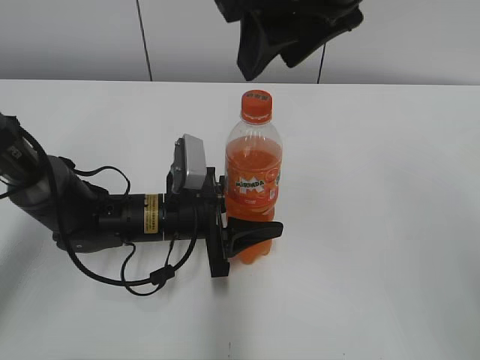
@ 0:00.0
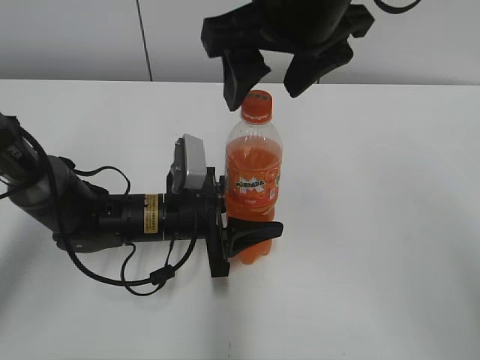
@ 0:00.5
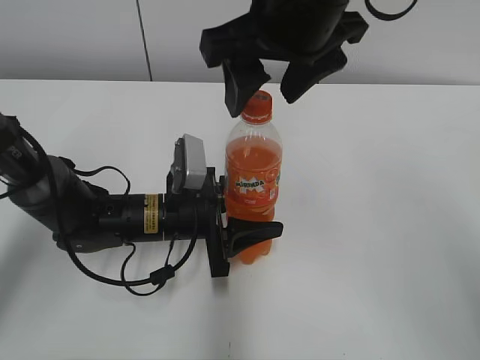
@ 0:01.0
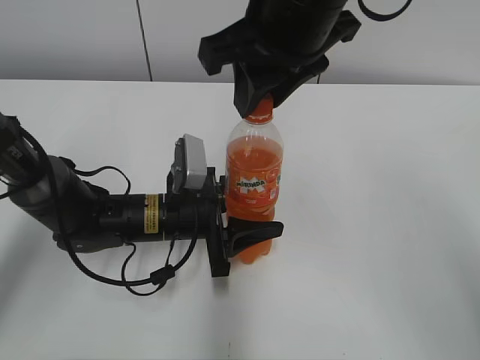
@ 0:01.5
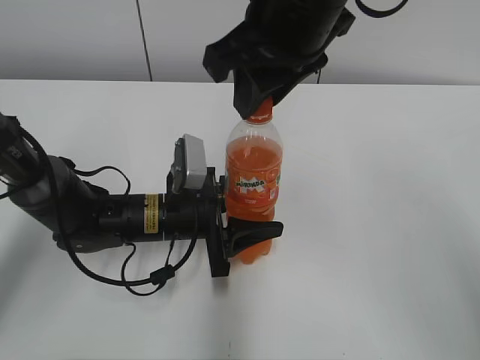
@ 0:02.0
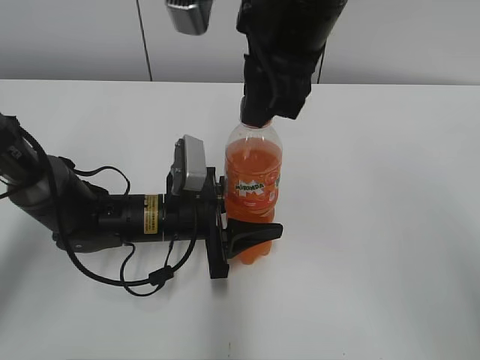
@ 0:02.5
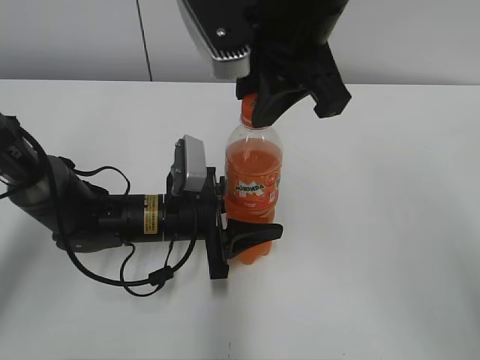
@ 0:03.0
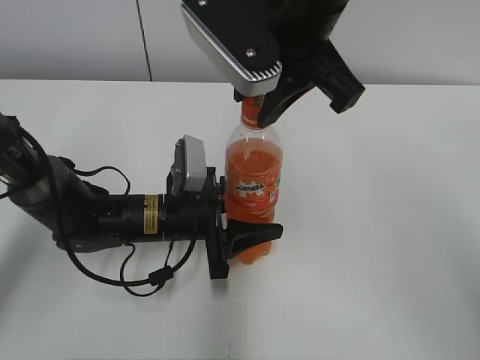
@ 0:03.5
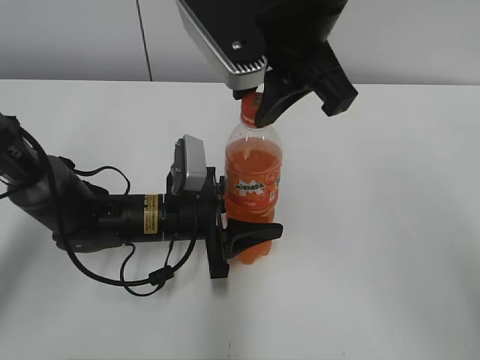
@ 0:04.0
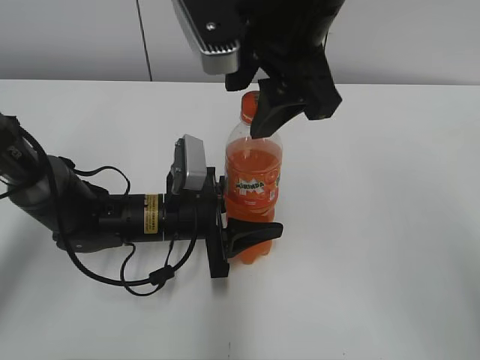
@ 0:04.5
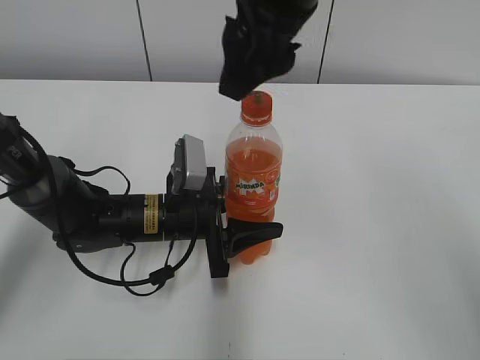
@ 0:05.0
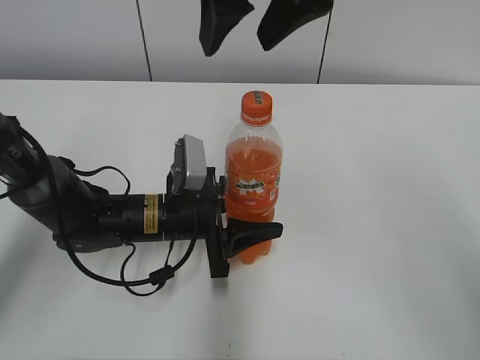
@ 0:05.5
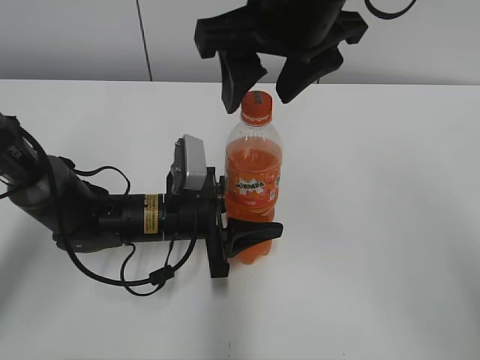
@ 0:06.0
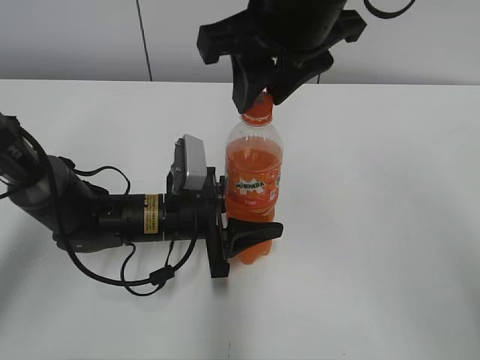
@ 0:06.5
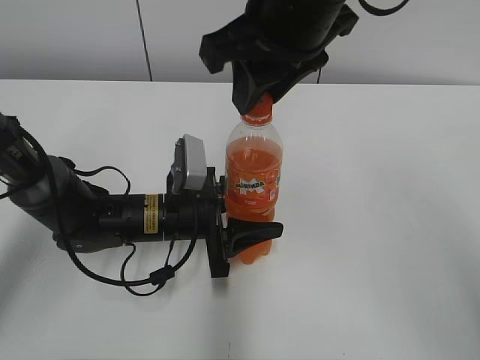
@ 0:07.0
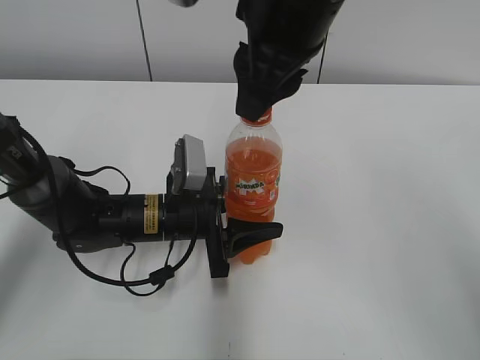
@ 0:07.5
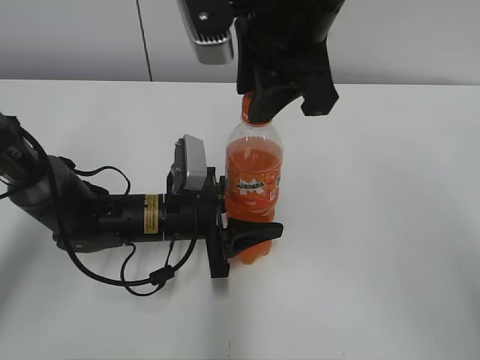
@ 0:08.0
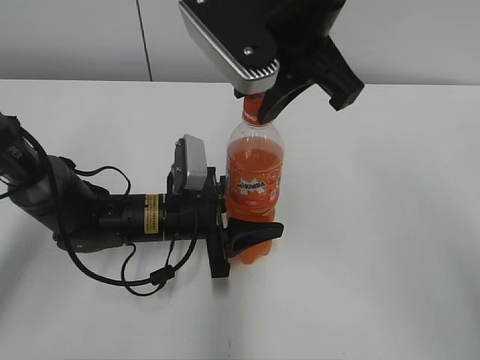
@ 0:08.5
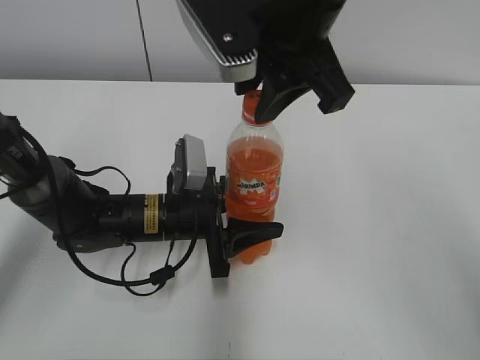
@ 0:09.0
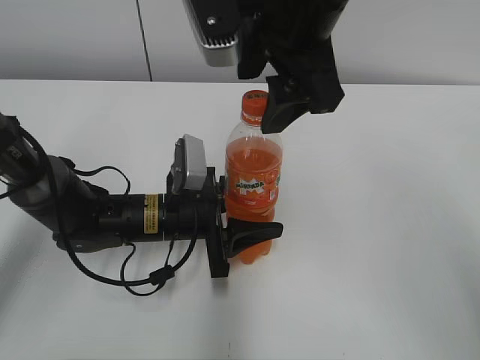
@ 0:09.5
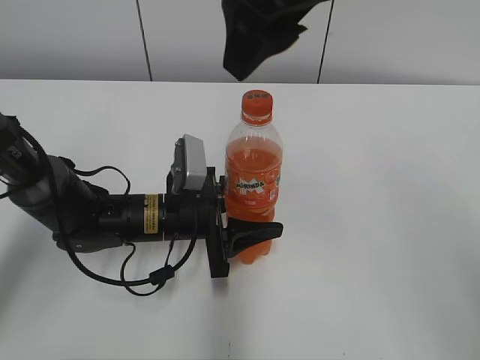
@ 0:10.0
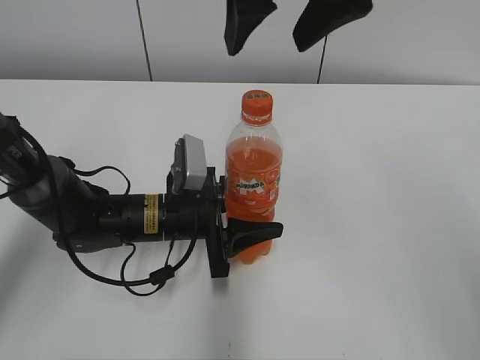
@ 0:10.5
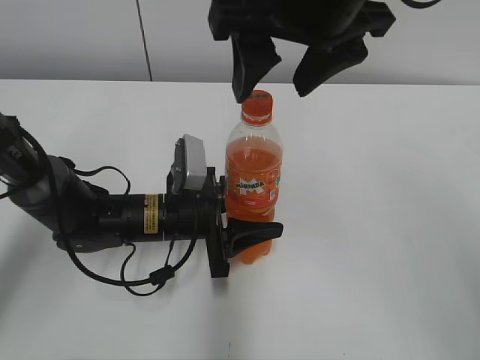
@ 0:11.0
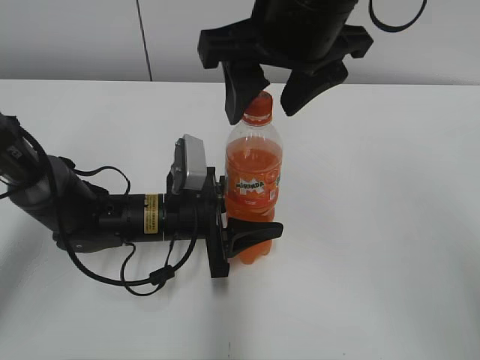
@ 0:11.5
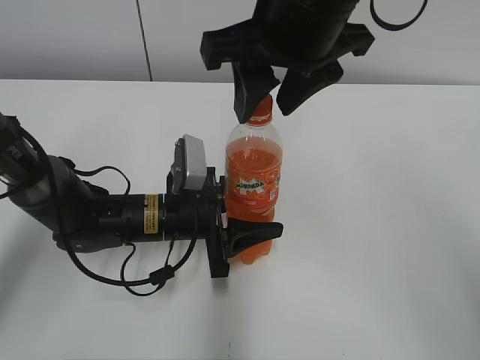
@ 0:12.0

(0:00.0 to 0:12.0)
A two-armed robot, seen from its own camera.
0:00.0 - 0:02.0: The right gripper changes place by roughly 5 cm, and opens, then closes once more.
0:04.0 - 0:06.0: The right gripper opens.
0:06.0 - 0:08.0: The right gripper closes its fingers.
0:08.0 - 0:10.0: The right gripper opens its fingers.
0:10.0 - 0:12.0: The right gripper closes its fingers.

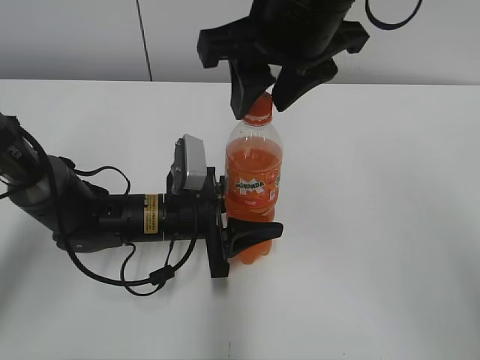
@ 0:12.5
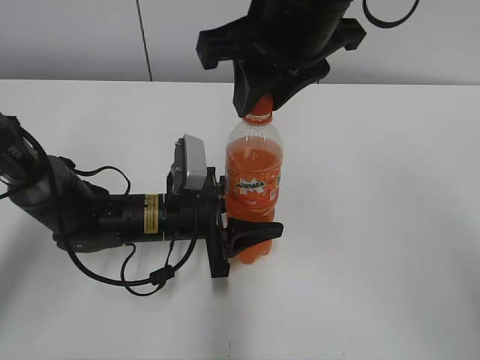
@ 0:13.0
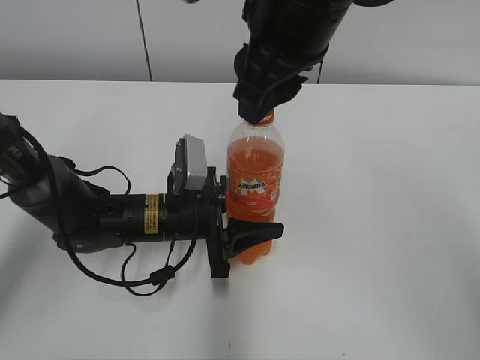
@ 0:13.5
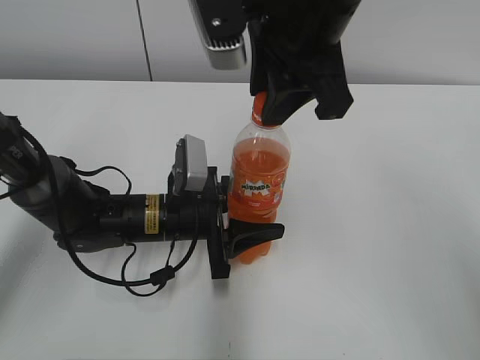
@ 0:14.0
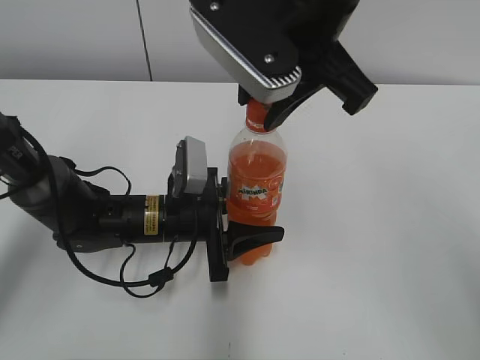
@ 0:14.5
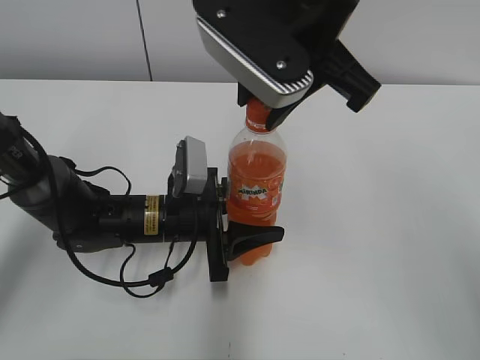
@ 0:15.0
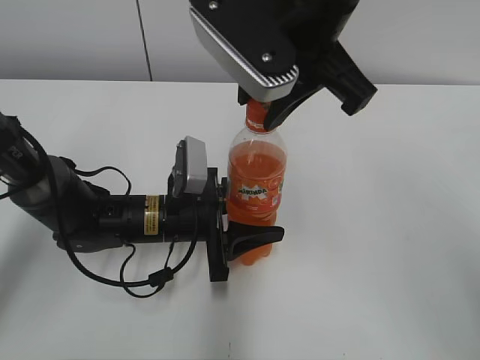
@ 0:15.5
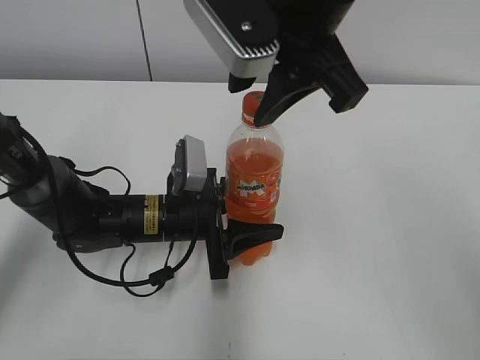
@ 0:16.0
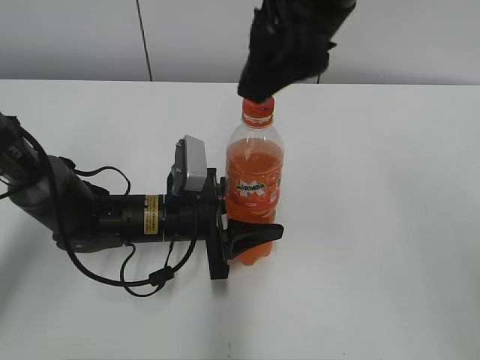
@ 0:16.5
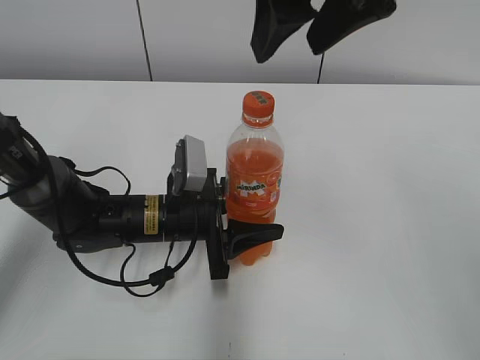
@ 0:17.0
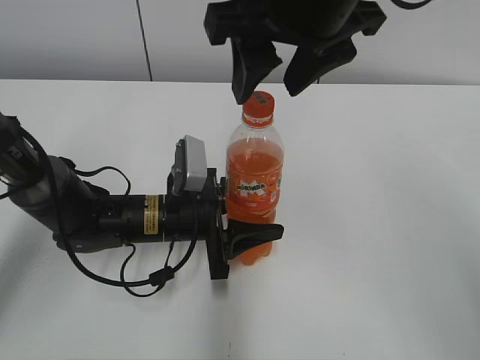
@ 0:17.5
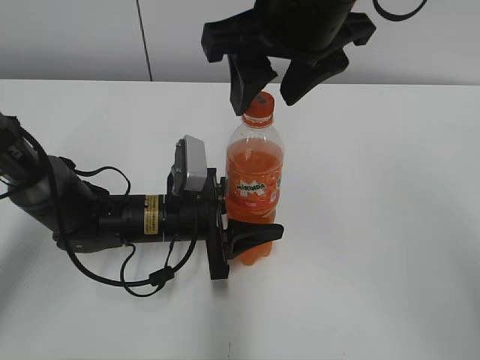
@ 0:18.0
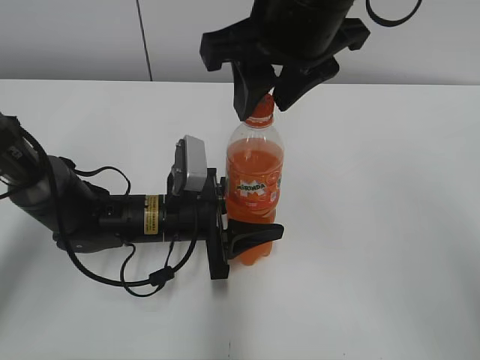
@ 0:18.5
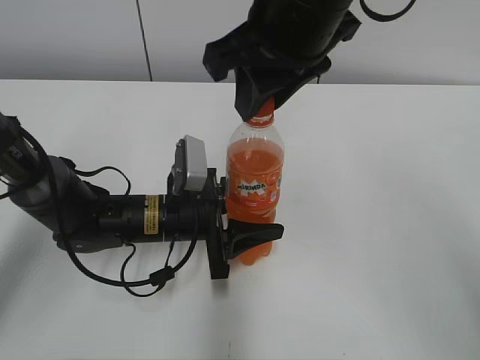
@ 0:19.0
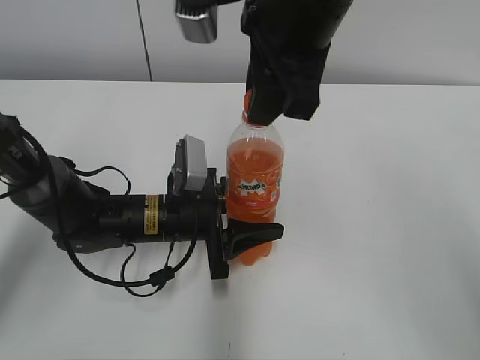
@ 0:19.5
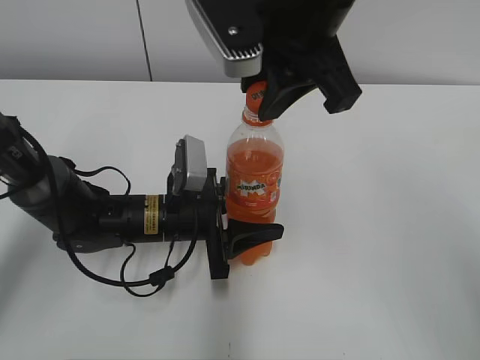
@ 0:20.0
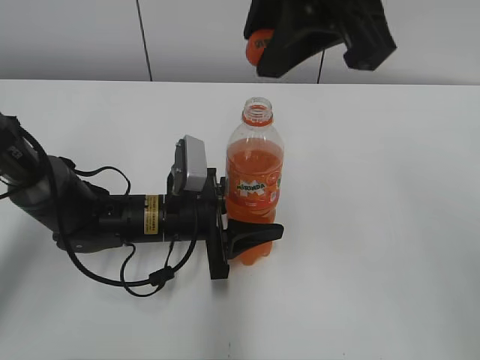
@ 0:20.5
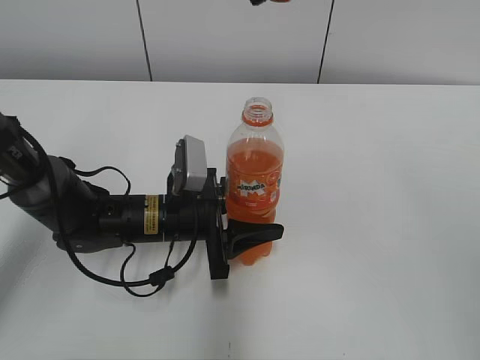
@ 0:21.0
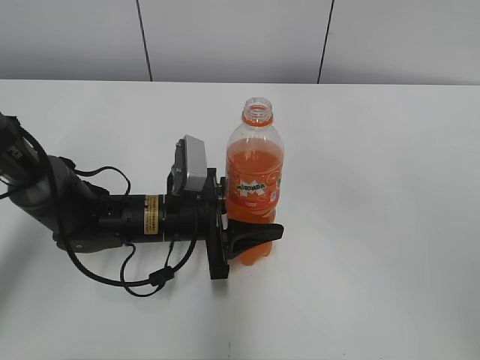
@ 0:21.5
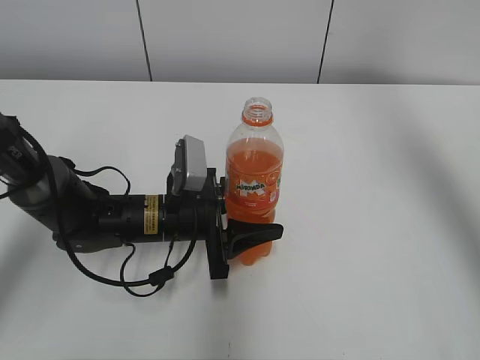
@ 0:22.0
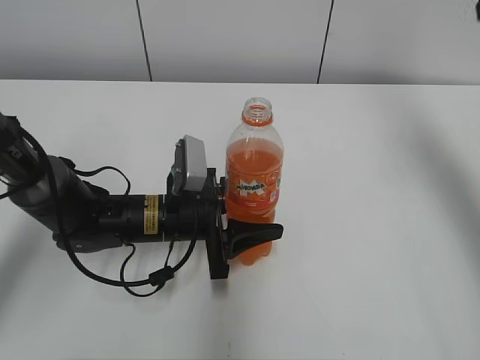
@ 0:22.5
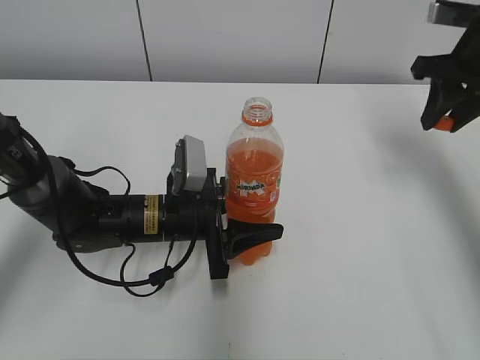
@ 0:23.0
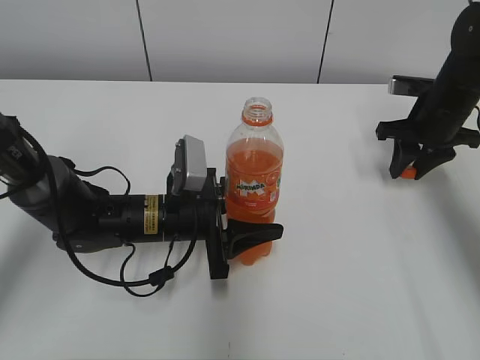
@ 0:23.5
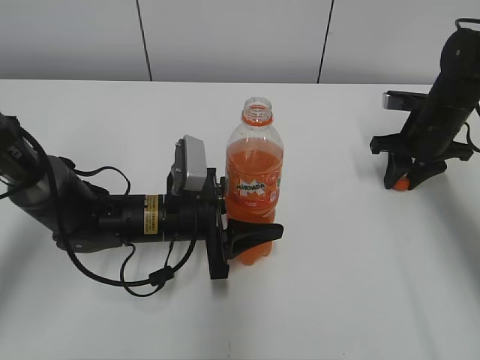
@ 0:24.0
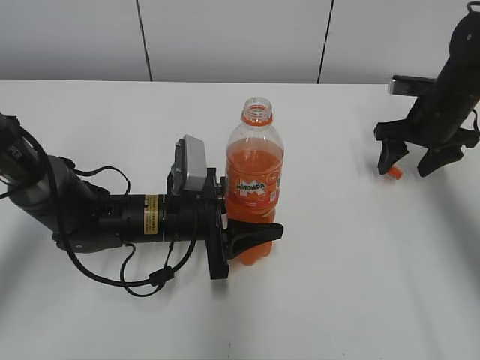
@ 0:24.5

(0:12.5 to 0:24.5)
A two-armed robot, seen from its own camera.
Step, 0:20.5 - 0:24.0: Place the bottle cap on the right.
0:14.5 - 0:16.5: The right gripper opens up.
0:18.5 - 0:20.5: The right gripper shifts approximately 5 cm upward.
0:20.5 - 0:22.5: The right gripper heads to the right and forward, covering approximately 25 cm.
0:22.5 - 0:24.5: The right gripper goes approximately 25 cm downward, and opens its fingers.

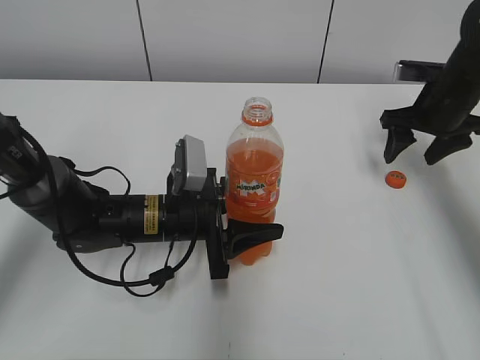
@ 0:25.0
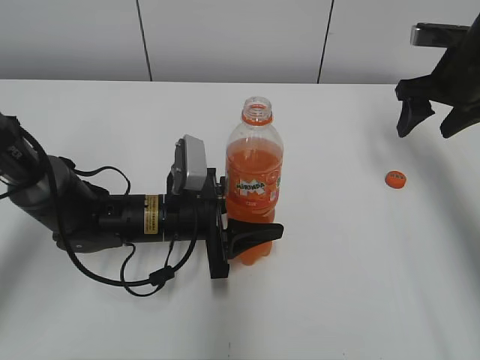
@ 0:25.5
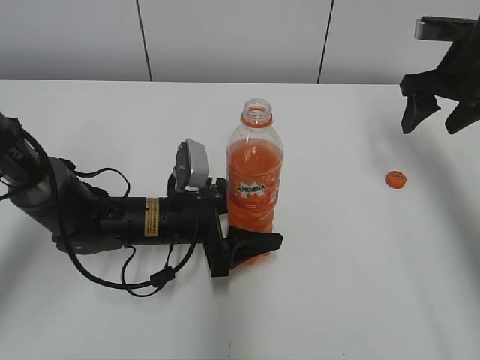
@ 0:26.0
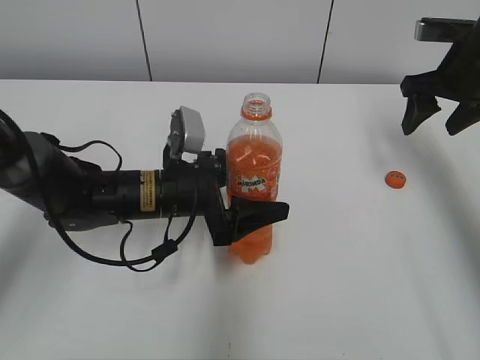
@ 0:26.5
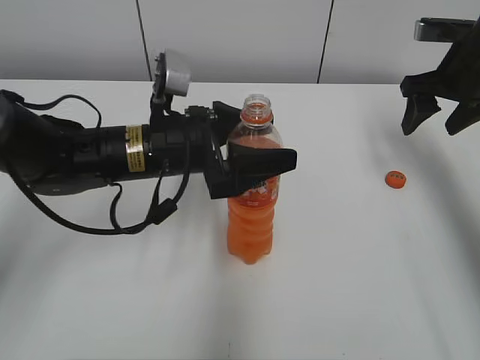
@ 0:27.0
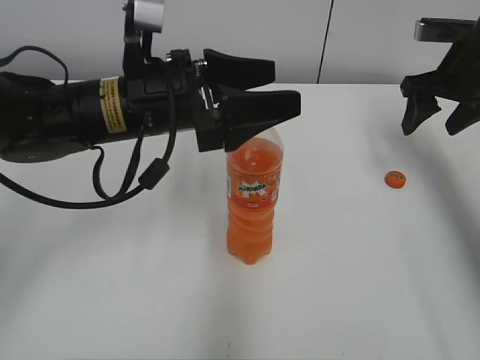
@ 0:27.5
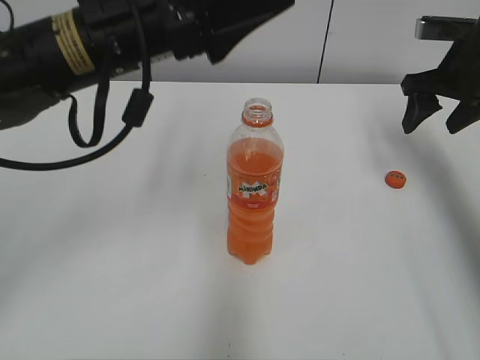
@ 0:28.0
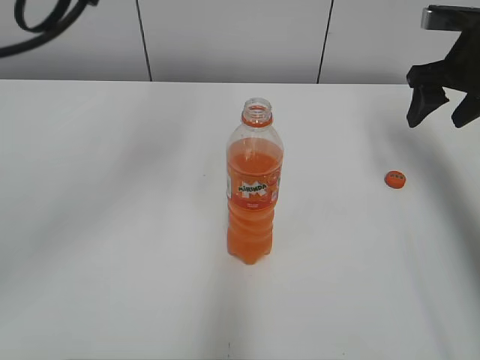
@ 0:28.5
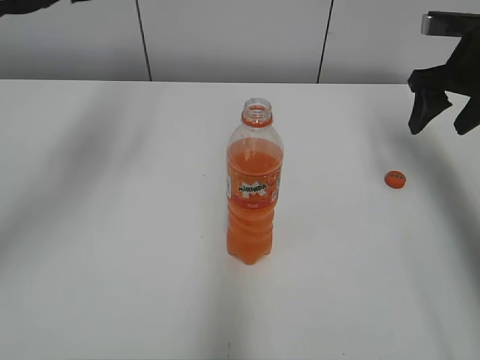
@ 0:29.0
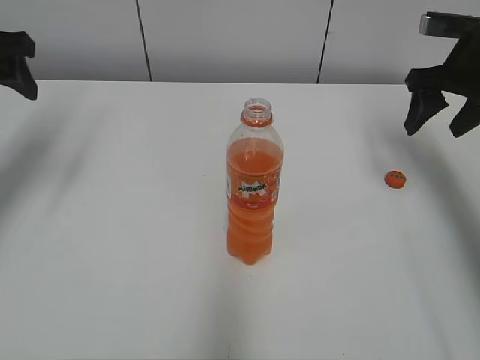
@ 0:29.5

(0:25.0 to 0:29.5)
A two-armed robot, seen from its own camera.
0:25.0 - 0:27.0: The right gripper travels upward by some 5 cm; the left gripper moves upward, about 10 cm, and opens.
0:27.0 - 0:29.5: The left gripper goes about 25 cm to the left and upward.
